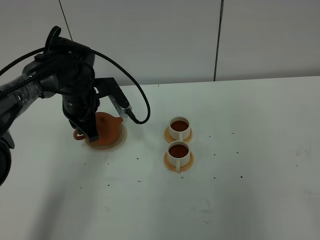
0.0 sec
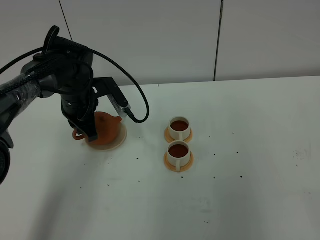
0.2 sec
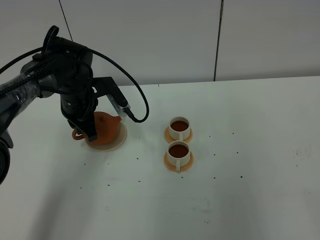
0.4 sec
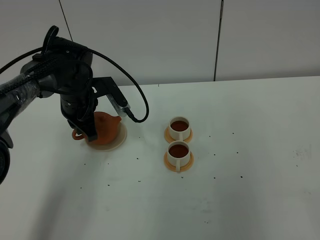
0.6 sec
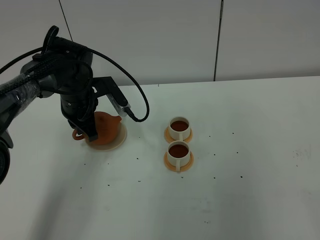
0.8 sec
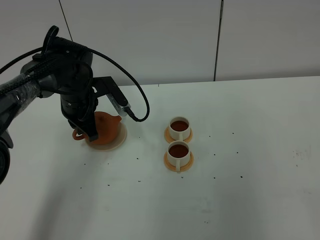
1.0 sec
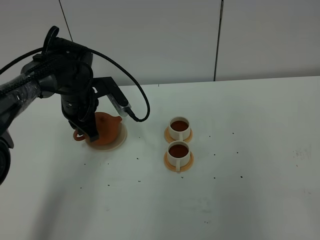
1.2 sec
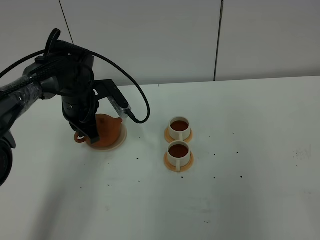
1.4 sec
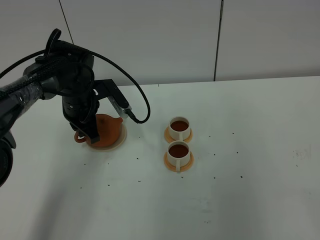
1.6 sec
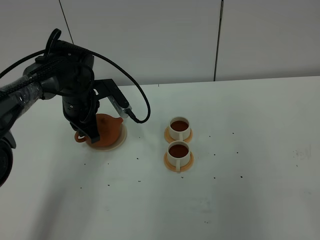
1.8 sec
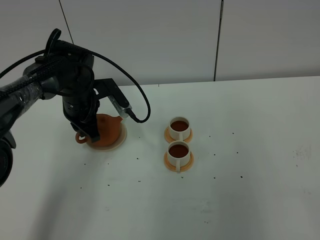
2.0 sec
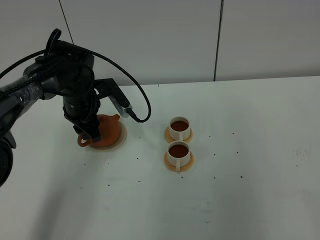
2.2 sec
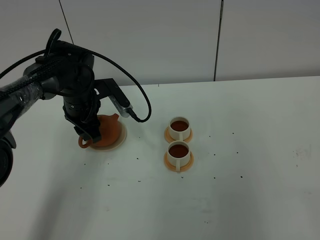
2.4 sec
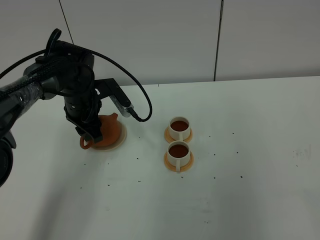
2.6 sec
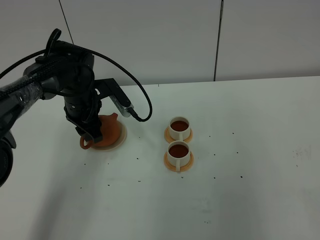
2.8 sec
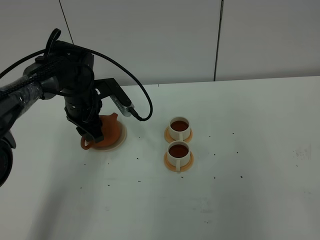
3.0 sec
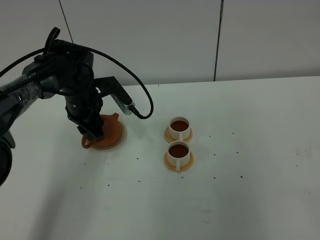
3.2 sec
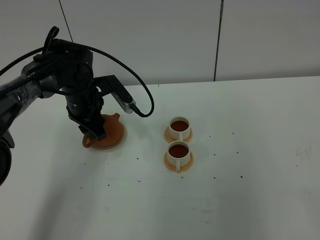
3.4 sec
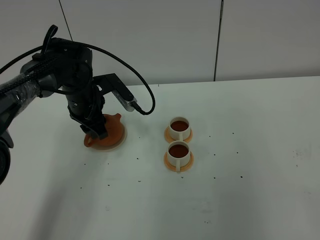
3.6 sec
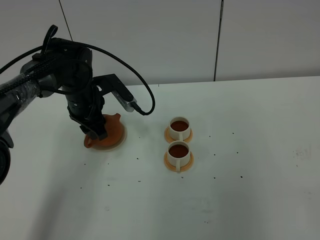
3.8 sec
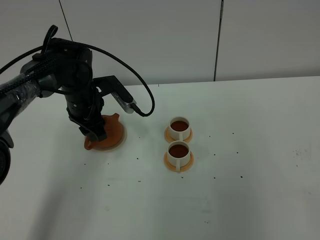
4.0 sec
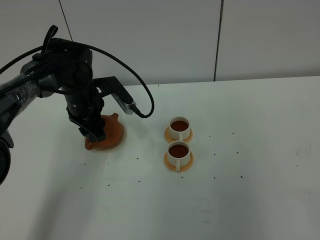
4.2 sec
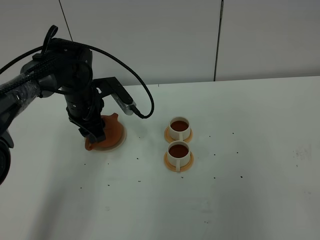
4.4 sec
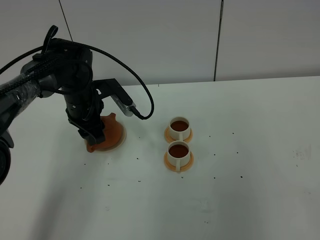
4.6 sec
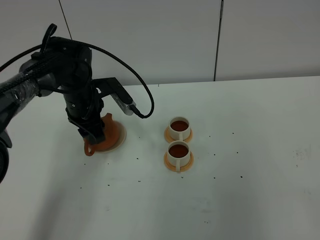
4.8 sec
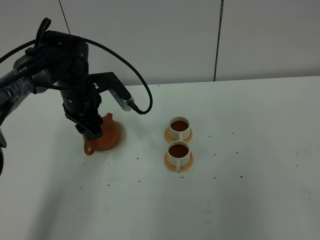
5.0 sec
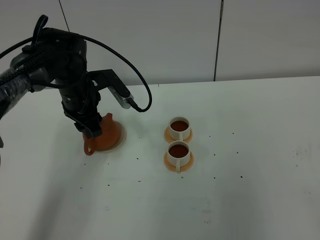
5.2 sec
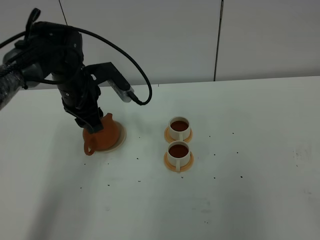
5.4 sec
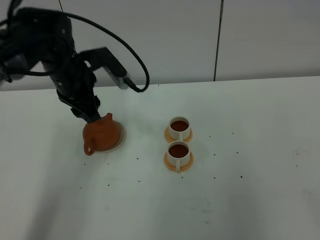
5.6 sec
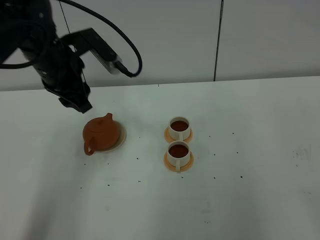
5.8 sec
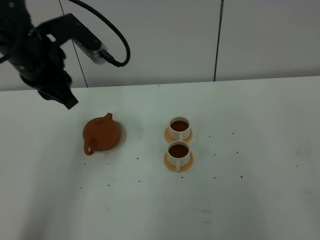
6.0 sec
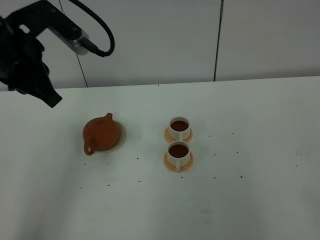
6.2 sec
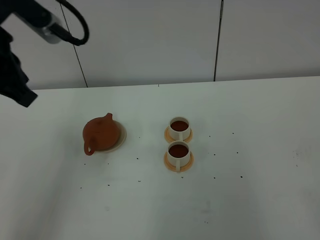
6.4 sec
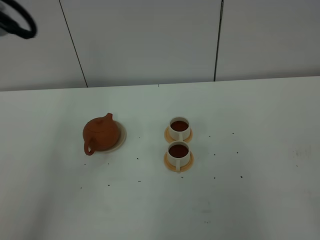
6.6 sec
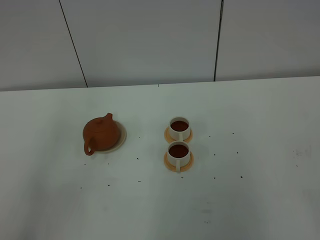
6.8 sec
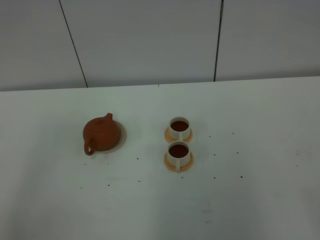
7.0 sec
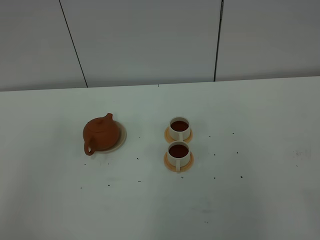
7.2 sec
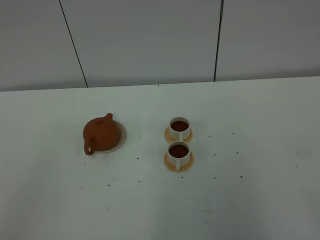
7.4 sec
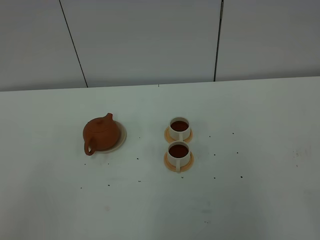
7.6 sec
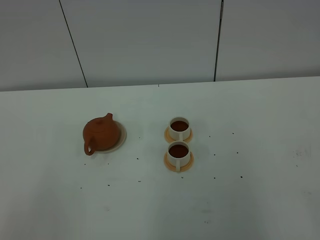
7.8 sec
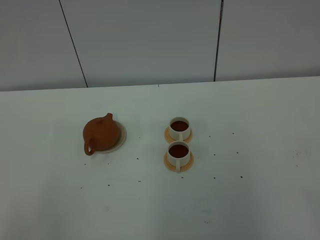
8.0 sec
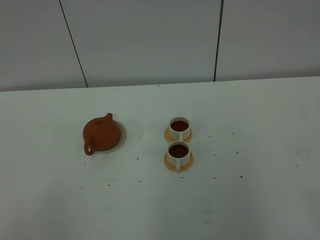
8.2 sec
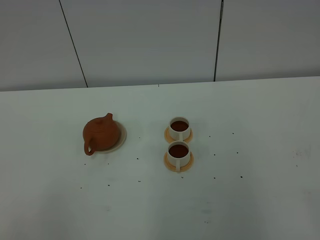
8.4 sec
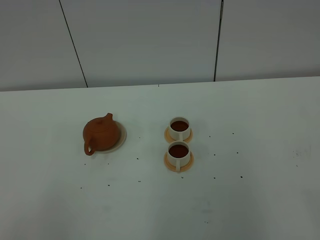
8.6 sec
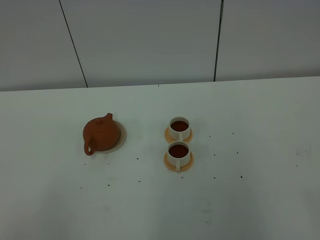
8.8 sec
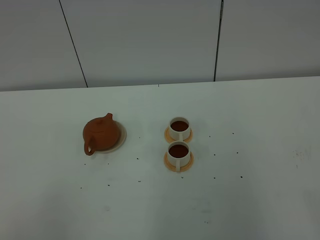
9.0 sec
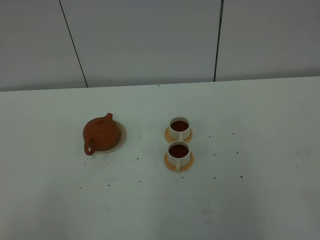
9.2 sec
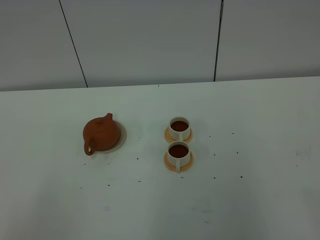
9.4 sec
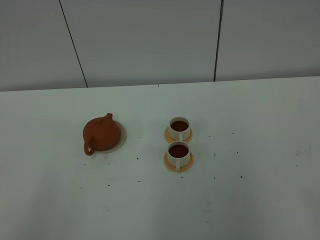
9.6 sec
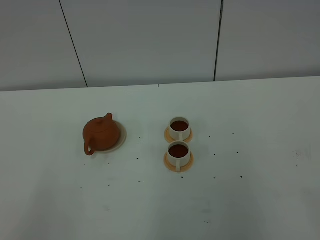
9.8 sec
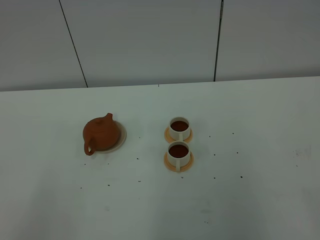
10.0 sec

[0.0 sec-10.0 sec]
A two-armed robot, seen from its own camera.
Task of the whole recording: grasp the brown teapot and pour the tea into the two white teacups one by one, put the brown teapot back in its original place.
0.0 sec to 1.4 sec: Neither gripper changes place.
1.4 sec to 2.8 sec: The left gripper opens up.
2.8 sec to 4.2 sec: Both grippers stay put.
4.2 sec to 5.8 sec: The left gripper heads upward and backward, covering about 15 cm.
5.8 sec to 7.2 sec: The left gripper goes about 35 cm backward, and closes up.

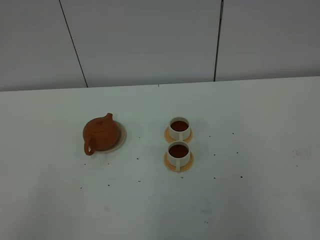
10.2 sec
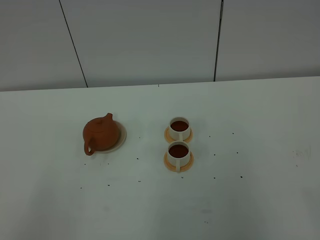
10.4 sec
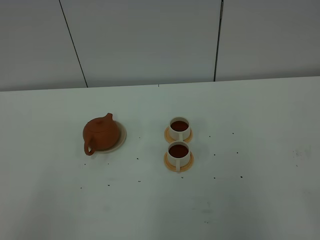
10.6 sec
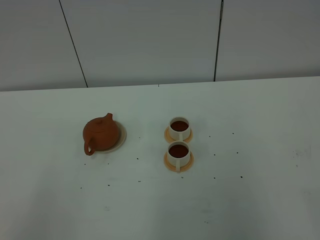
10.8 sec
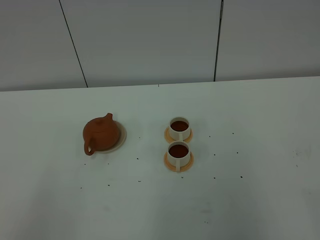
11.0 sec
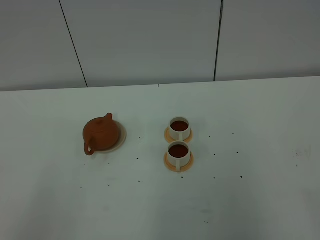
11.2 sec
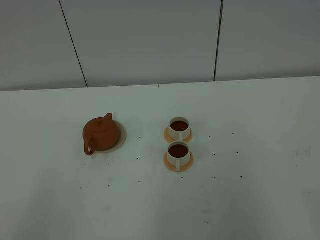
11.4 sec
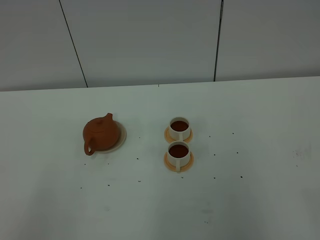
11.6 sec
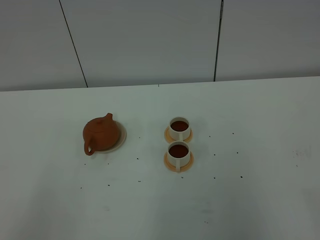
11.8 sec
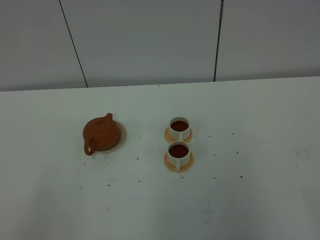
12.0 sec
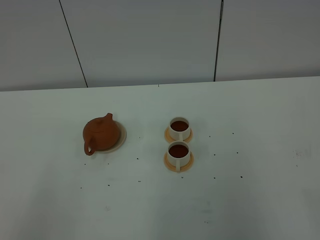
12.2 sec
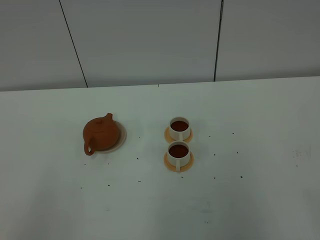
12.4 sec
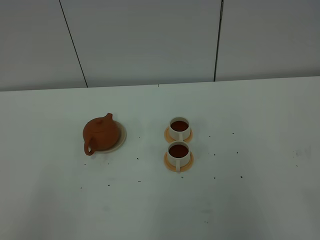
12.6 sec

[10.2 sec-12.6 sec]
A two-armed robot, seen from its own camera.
Task of the whole recording: grasp the brown teapot and pour the tea into the two white teacups one by one, put the brown teapot back in its original place.
10.2 sec to 12.6 sec: Neither gripper changes place.
